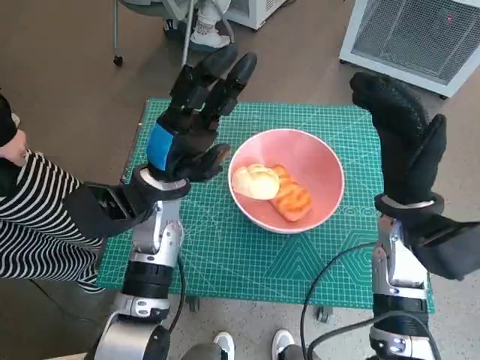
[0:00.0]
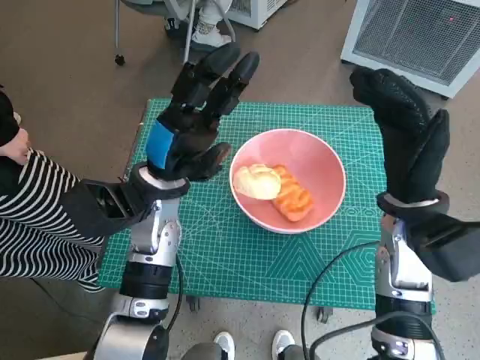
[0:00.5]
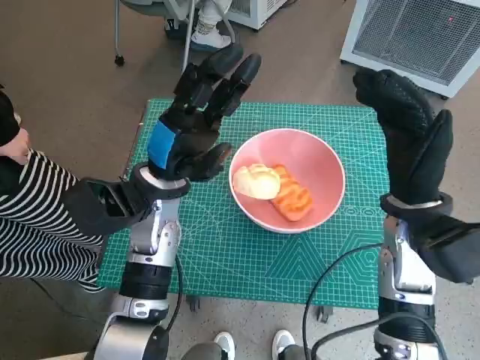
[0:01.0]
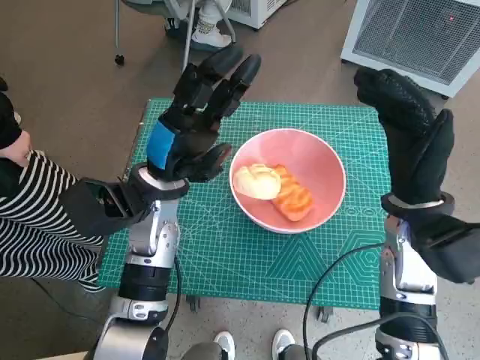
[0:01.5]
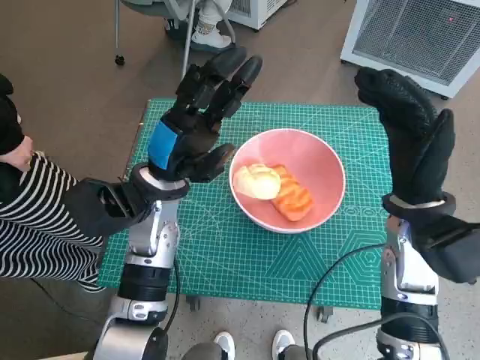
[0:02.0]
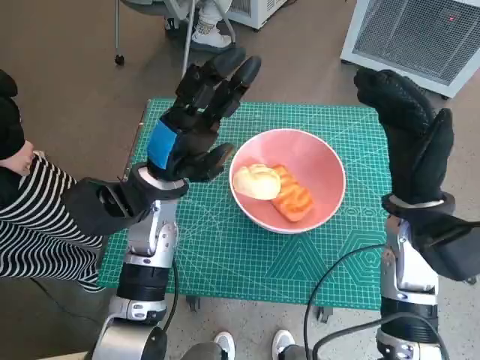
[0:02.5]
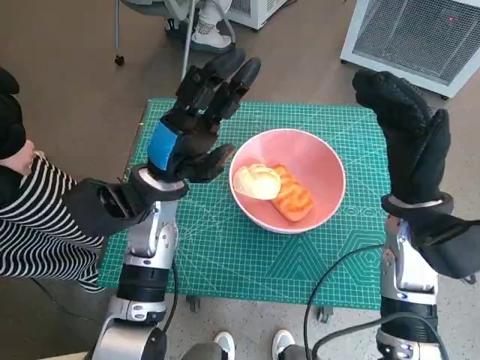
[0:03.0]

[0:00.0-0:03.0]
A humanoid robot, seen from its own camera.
Task of the whole recording: Push the bowl into the center of the table and put the bread into the bowl.
0:00.0 to 0:03.0: Both hands stay put.

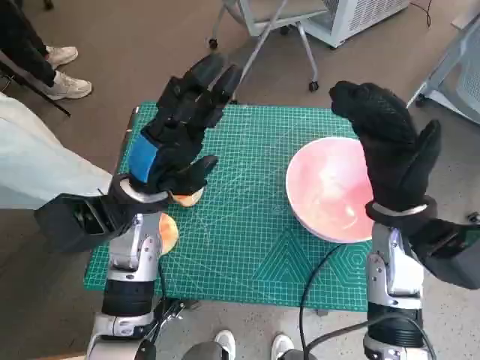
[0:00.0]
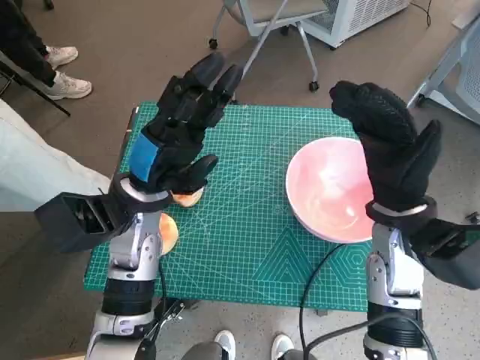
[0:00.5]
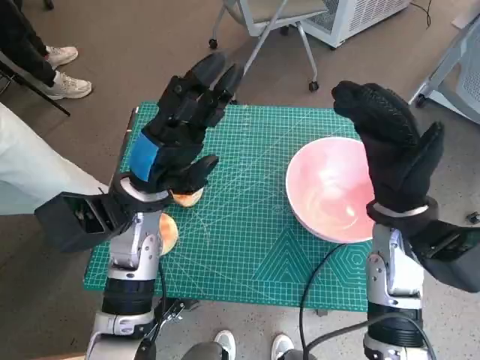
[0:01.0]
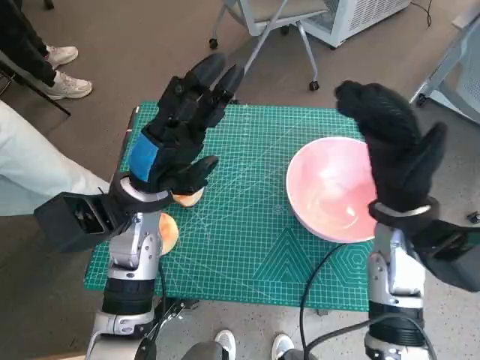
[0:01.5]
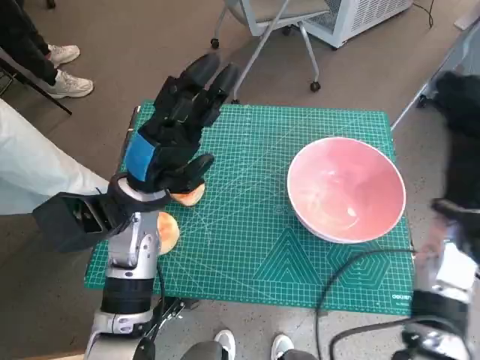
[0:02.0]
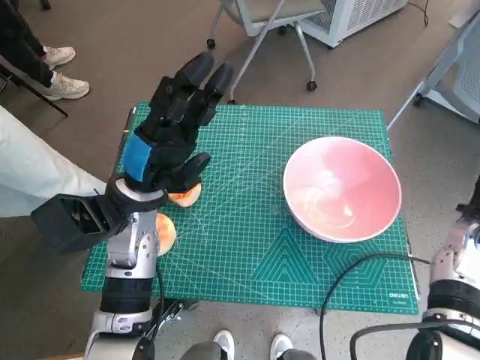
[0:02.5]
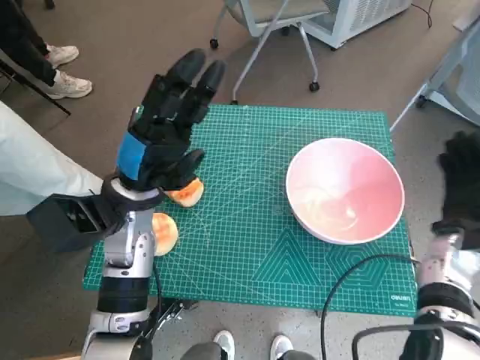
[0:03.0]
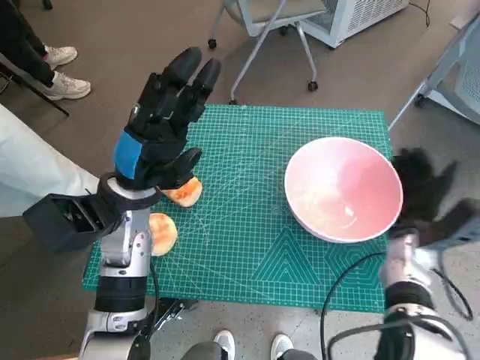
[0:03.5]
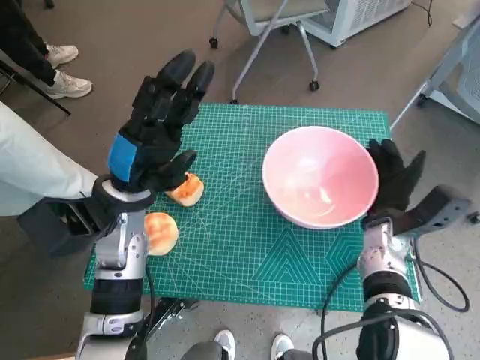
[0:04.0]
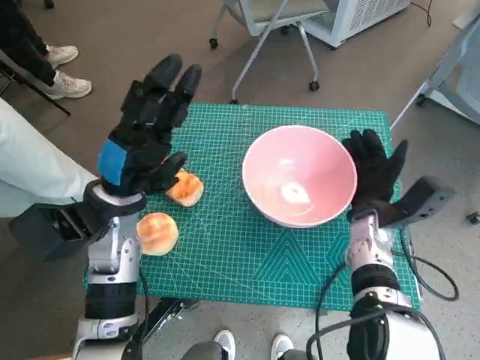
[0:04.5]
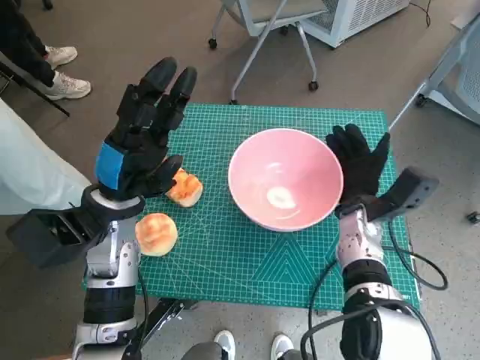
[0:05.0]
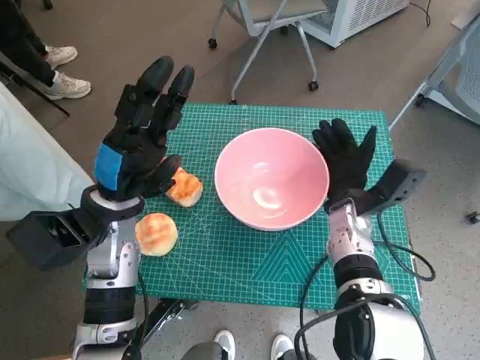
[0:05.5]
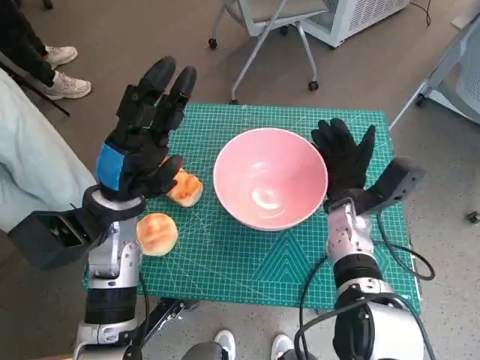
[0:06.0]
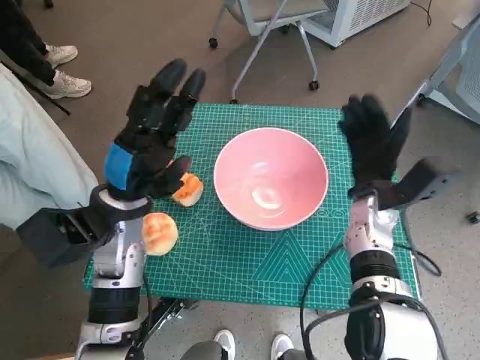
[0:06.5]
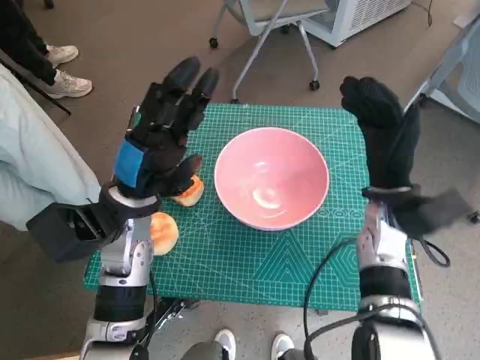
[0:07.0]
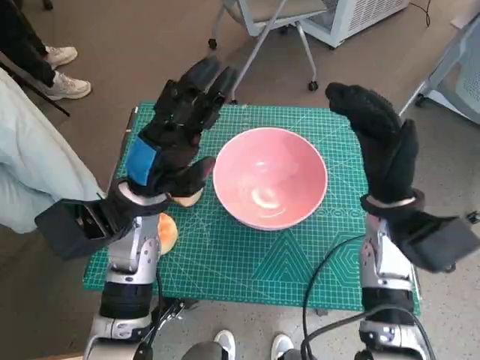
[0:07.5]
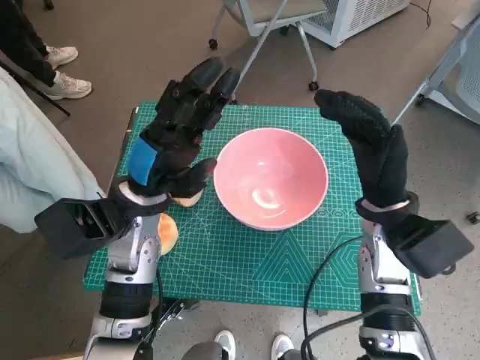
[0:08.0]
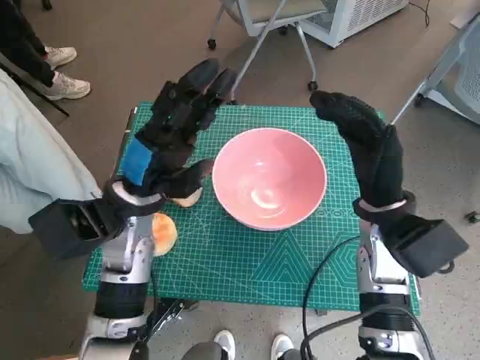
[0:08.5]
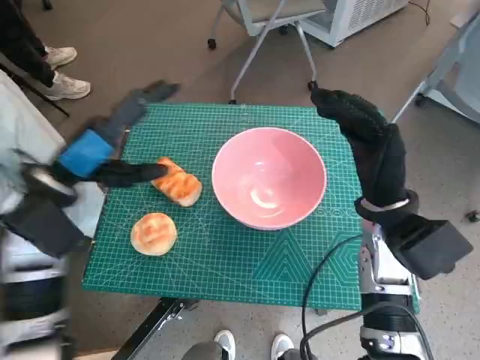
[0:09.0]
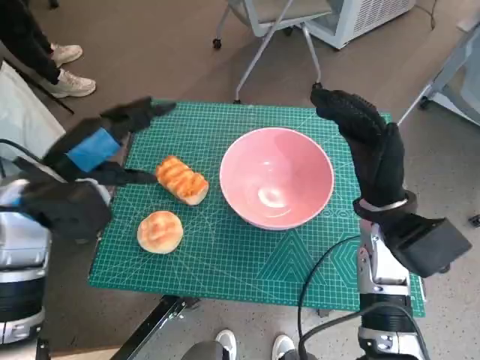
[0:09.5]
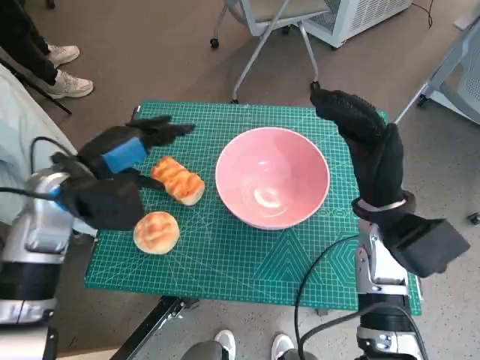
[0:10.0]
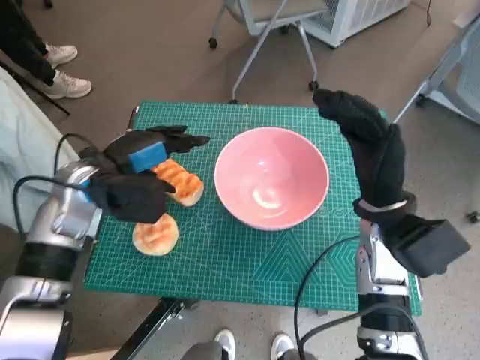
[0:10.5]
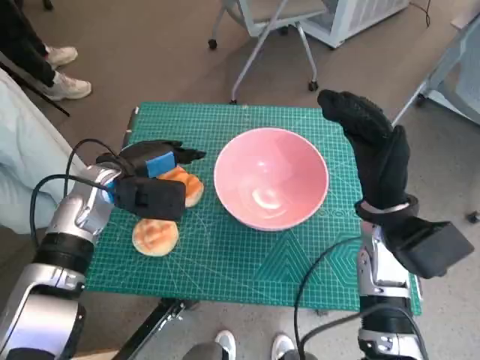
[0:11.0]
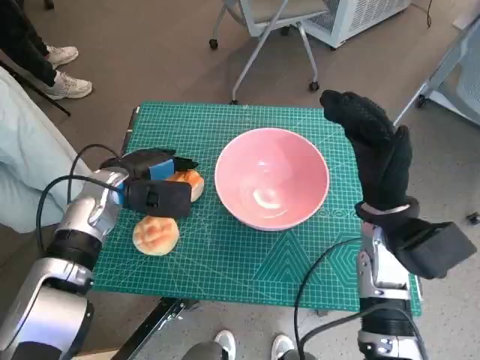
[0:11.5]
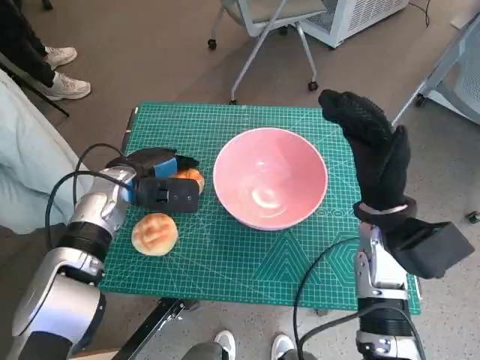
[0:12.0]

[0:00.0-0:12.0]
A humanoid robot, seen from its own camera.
Task of the whole recording: Push the bowl into the center of the table and put the bread into the bowl.
Step, 0:00.0 to 0:06.5: Move the pink bowl to the center of table with right hand.
0:02.0 to 0:04.0: The right hand heads downward, covering about 10 cm.
0:04.0 to 0:06.0: The right hand goes some 5 cm to the left.
0:06.0 to 0:08.0: The right hand travels upward by roughly 10 cm.
0:08.0 to 0:10.0: The left hand travels to the left by about 10 cm.
0:10.0 to 0:12.0: The left hand goes some 10 cm downward and forward.

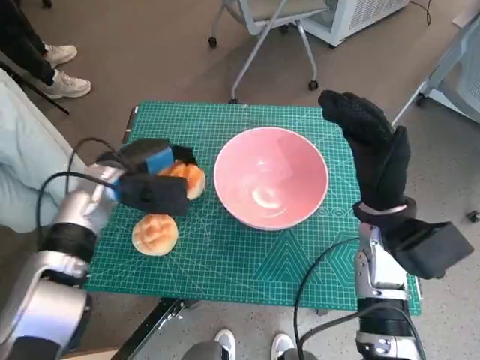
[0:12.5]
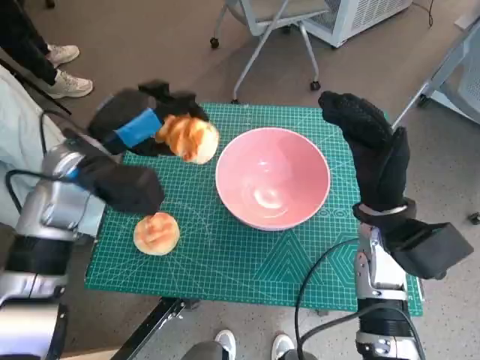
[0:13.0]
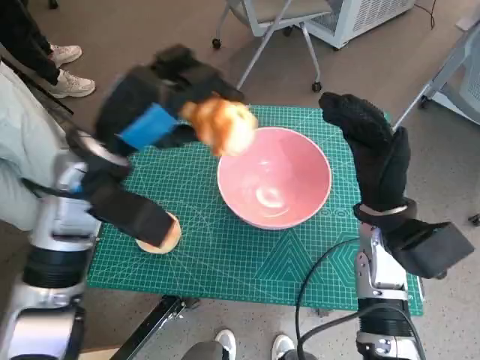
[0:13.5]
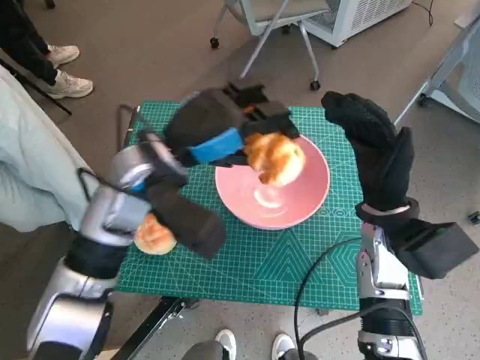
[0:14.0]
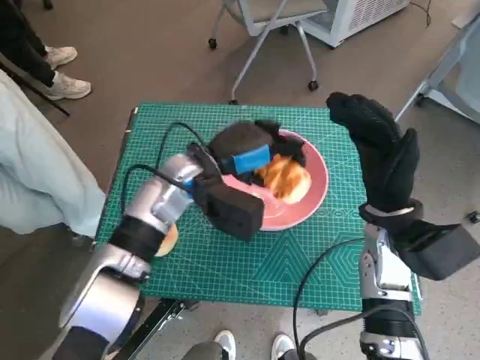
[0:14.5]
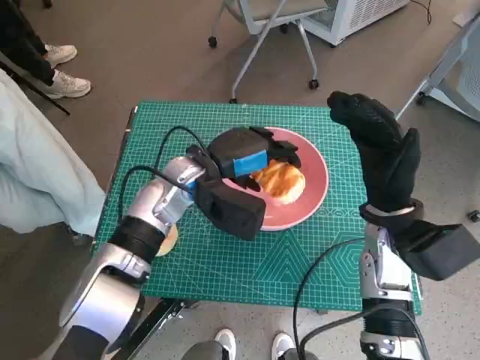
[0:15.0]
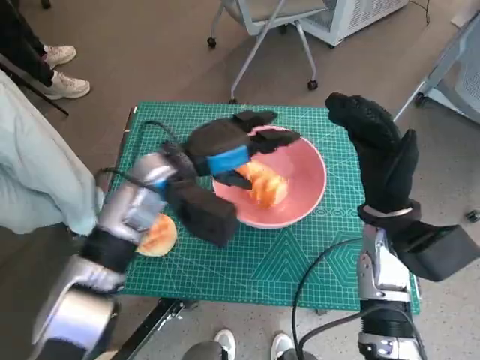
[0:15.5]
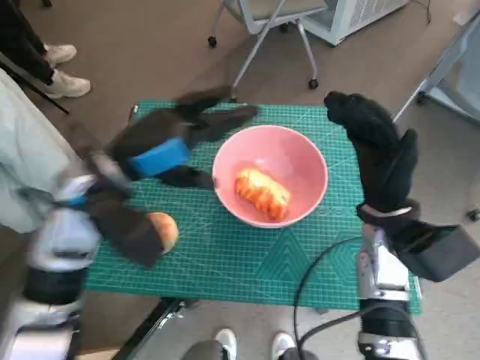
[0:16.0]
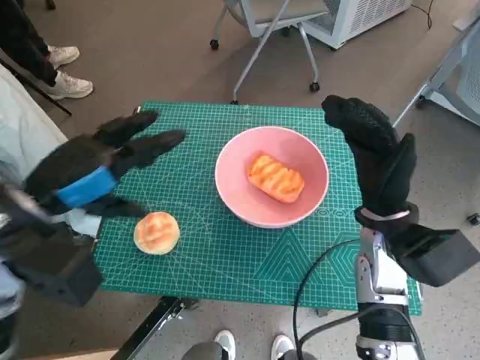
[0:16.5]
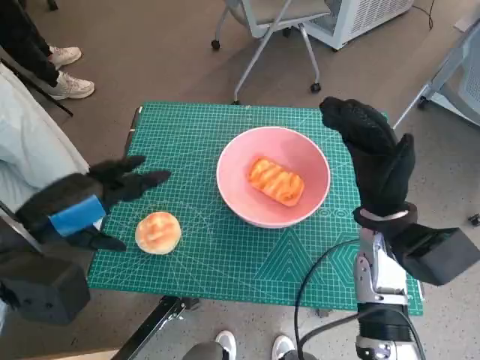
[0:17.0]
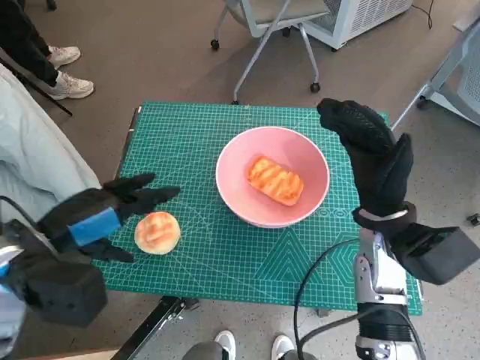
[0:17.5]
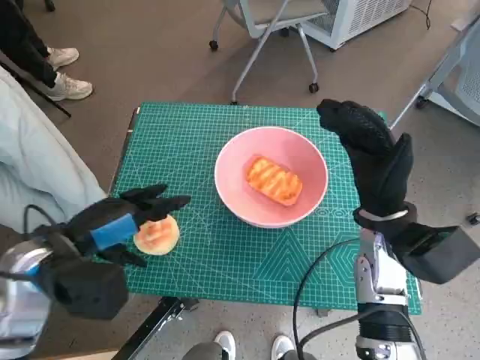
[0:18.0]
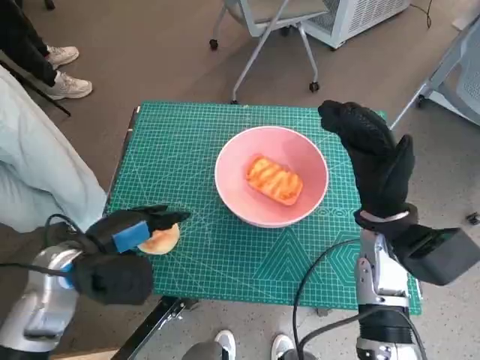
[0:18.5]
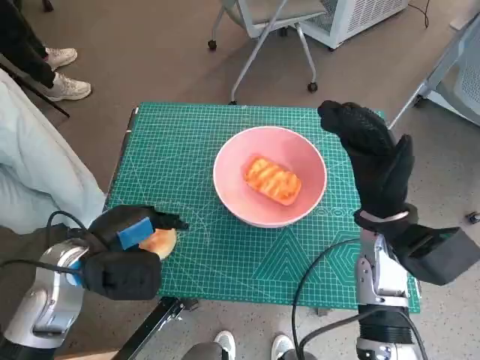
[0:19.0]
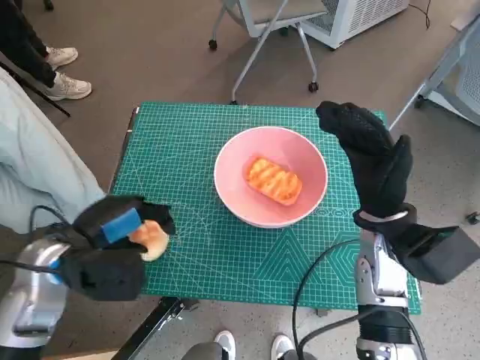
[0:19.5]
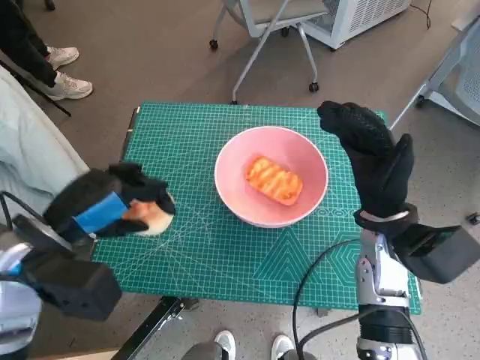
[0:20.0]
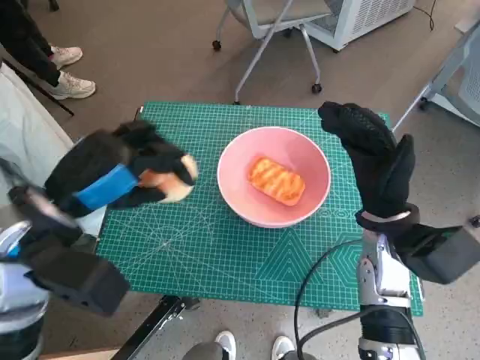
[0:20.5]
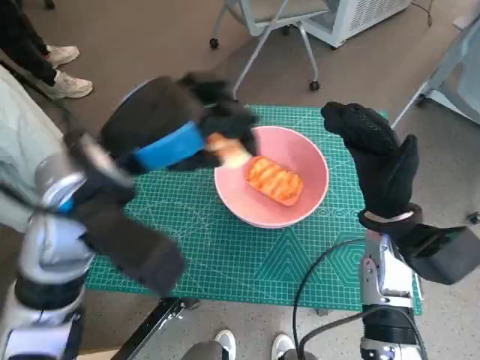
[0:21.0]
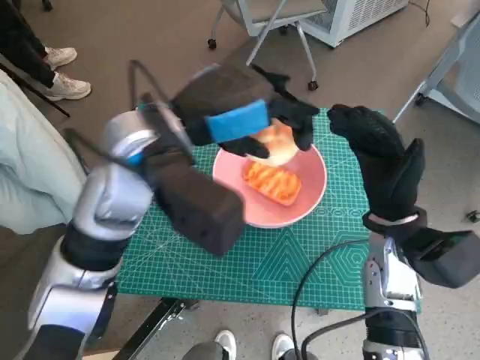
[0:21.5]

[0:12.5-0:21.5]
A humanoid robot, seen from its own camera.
Task of the whole recording: Push the bowl into the center of the table and put the bread into the bowl.
Step, 0:12.5 to 0:15.5: Place the long bread in pink bowl with left hand.
Step, 0:16.0 to 0:19.0: Grasp the round bread with left hand.
0:12.5 to 0:14.5: The left hand goes approximately 10 cm to the right.
0:14.5 to 0:17.0: The left hand is displaced to the left and backward by about 20 cm.
0:17.0 to 0:19.5: The left hand moves downward, about 10 cm.
0:19.5 to 0:21.5: The left hand heads to the right, upward and forward, covering roughly 20 cm.

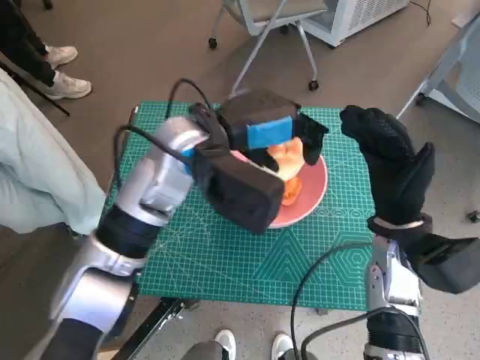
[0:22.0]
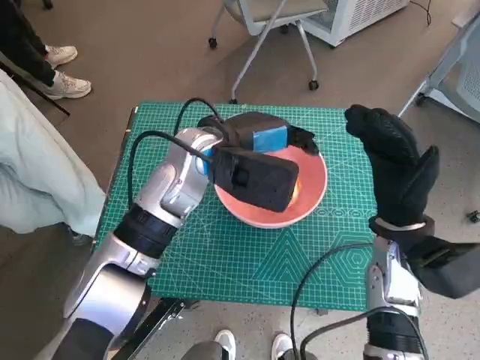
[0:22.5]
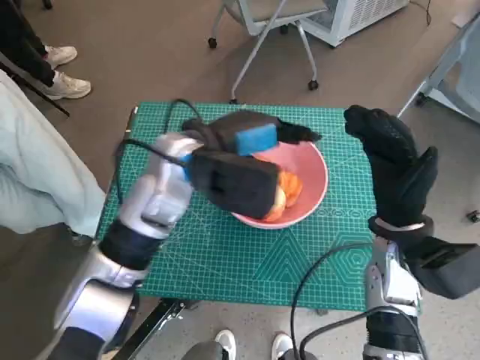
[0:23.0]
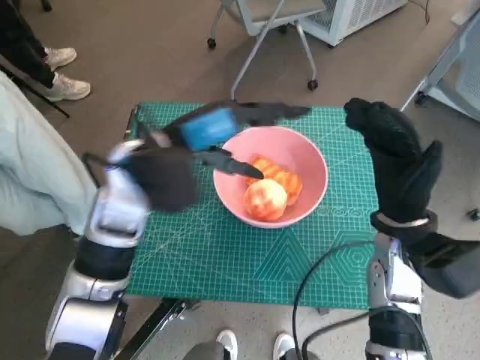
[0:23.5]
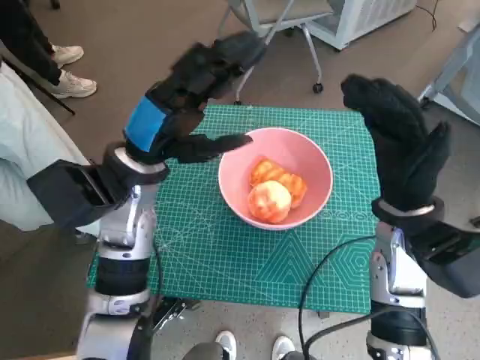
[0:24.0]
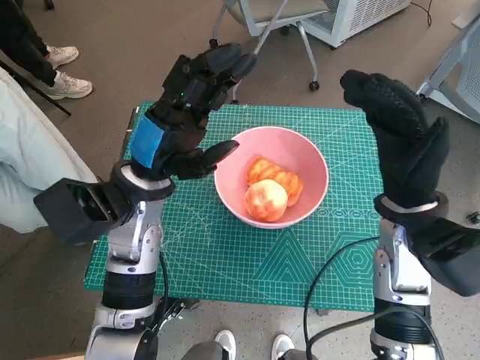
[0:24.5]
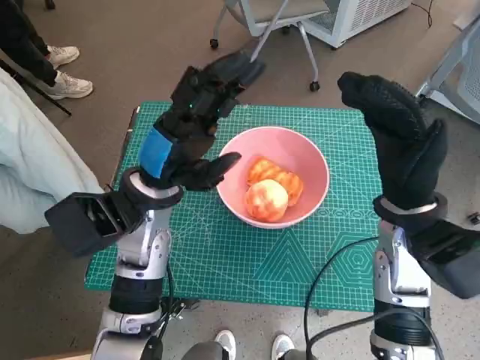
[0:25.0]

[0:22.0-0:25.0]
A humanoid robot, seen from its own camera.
Task of the whole recording: Push the bowl into the center of the table and put the bread into the bowl.
0:22.0 to 0:23.5: The left hand shifts by some 5 cm.
0:23.5 to 0:25.0: The left hand is displaced downward by approximately 5 cm.
